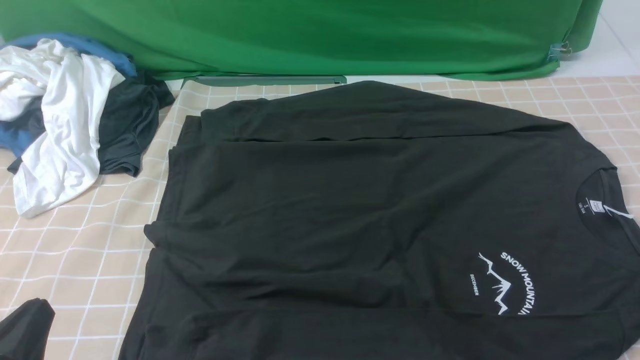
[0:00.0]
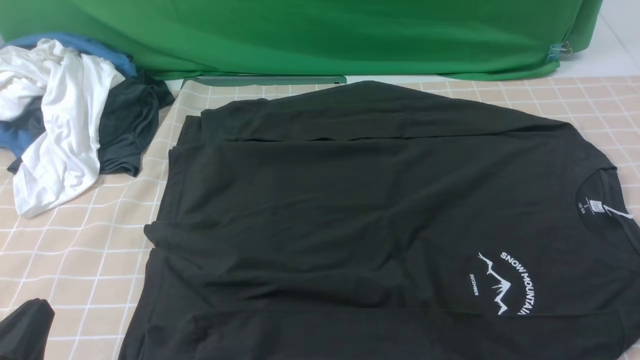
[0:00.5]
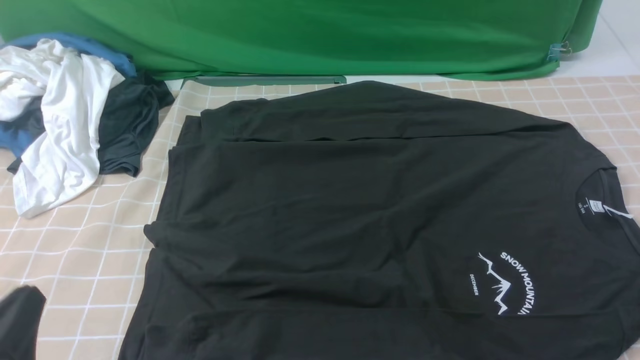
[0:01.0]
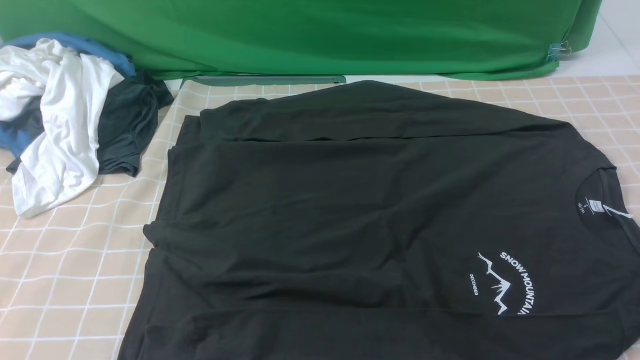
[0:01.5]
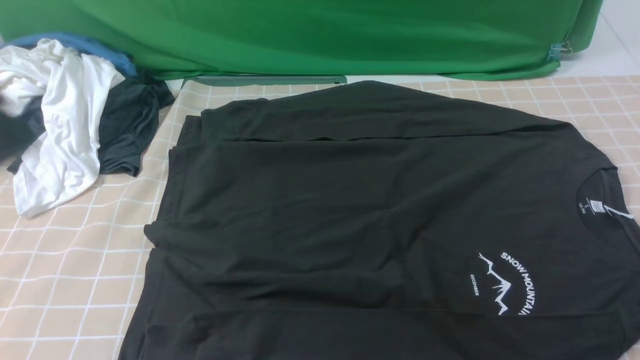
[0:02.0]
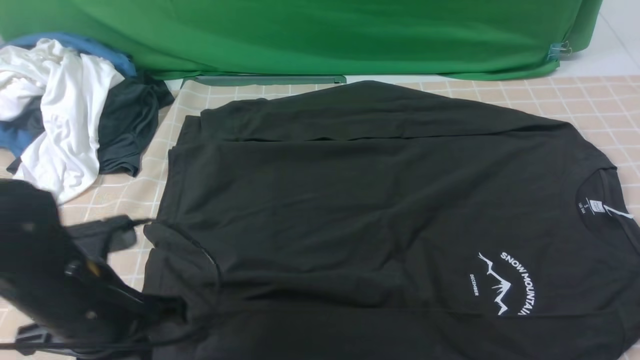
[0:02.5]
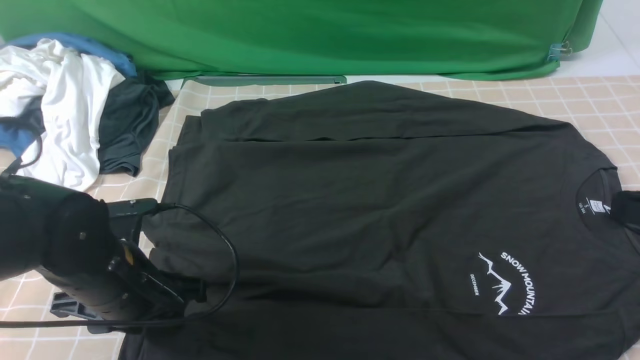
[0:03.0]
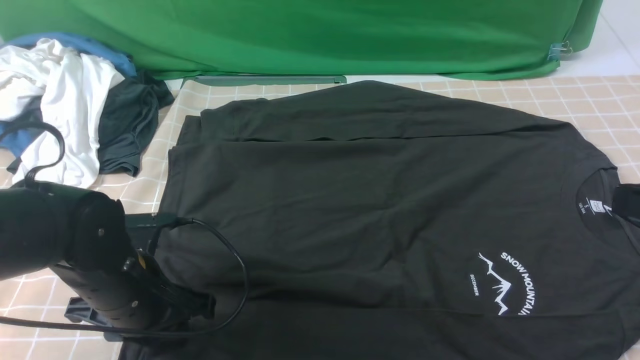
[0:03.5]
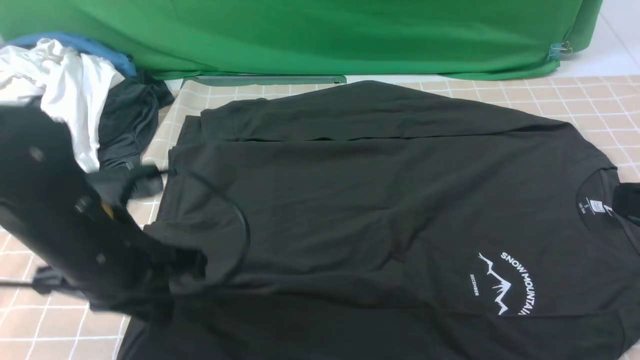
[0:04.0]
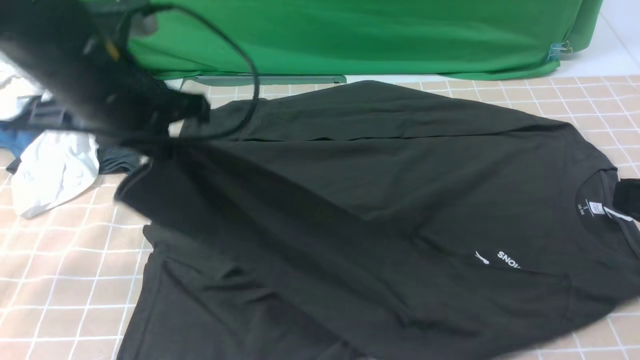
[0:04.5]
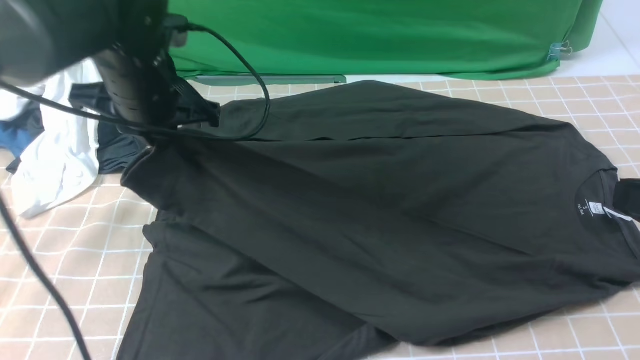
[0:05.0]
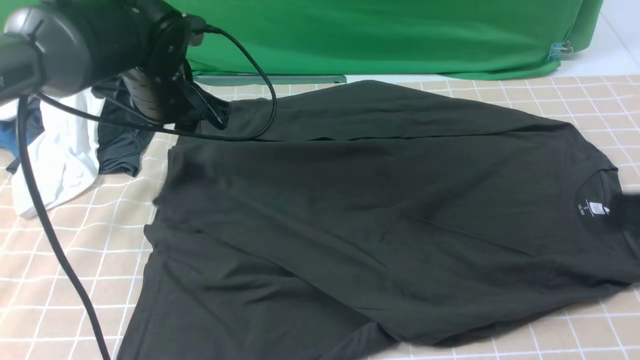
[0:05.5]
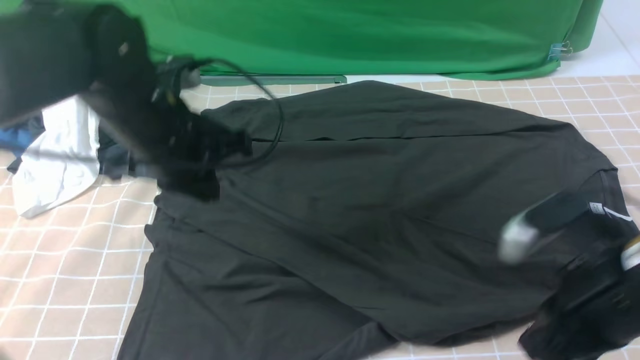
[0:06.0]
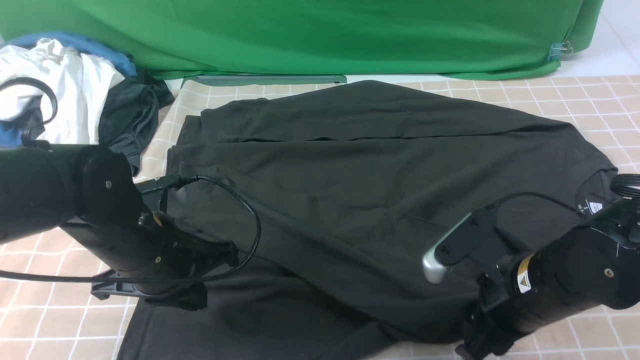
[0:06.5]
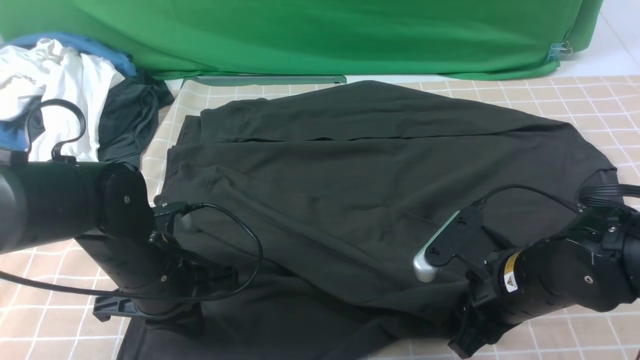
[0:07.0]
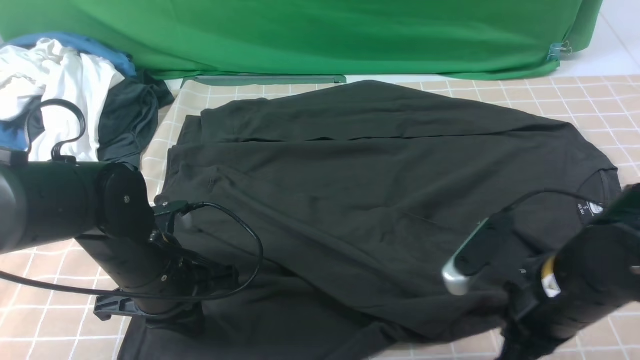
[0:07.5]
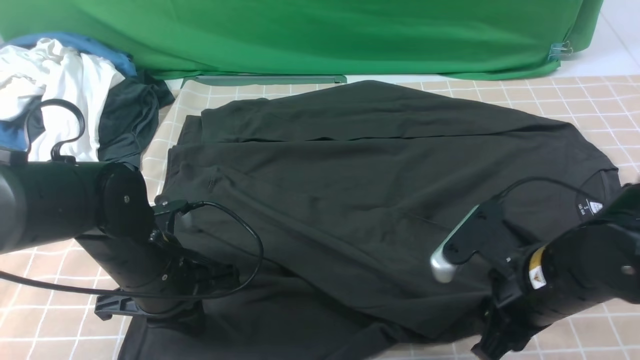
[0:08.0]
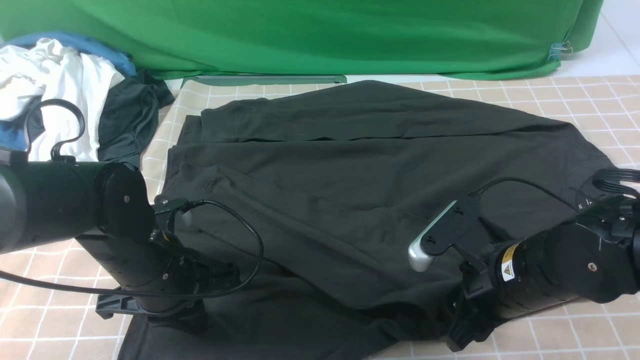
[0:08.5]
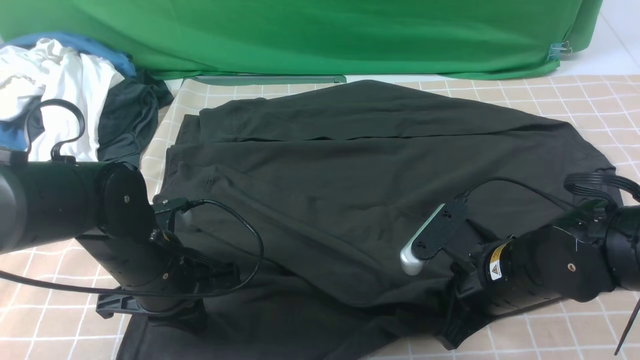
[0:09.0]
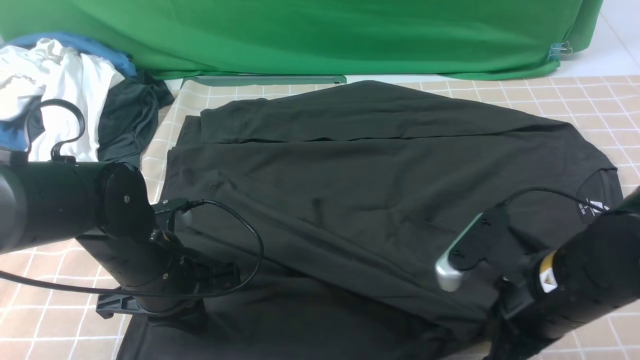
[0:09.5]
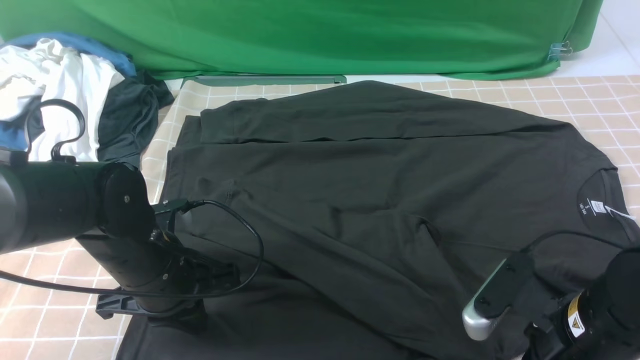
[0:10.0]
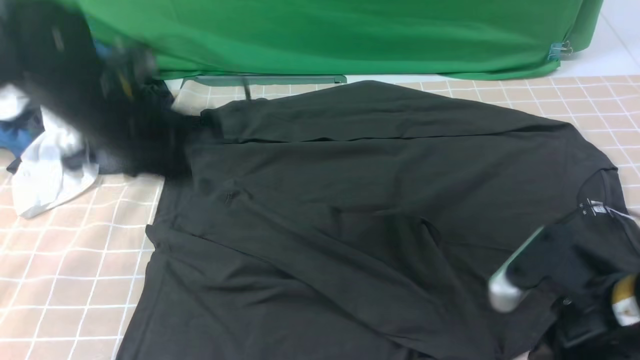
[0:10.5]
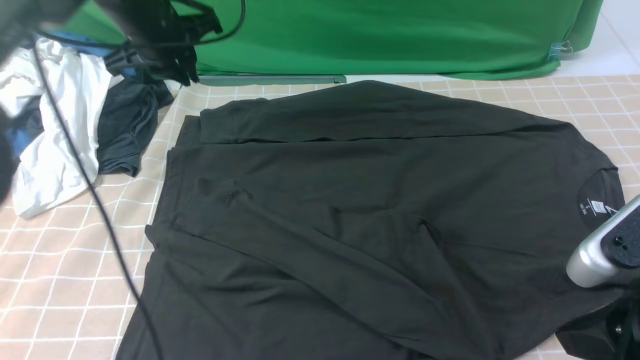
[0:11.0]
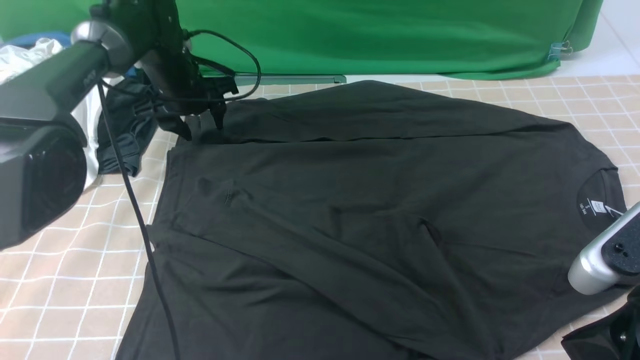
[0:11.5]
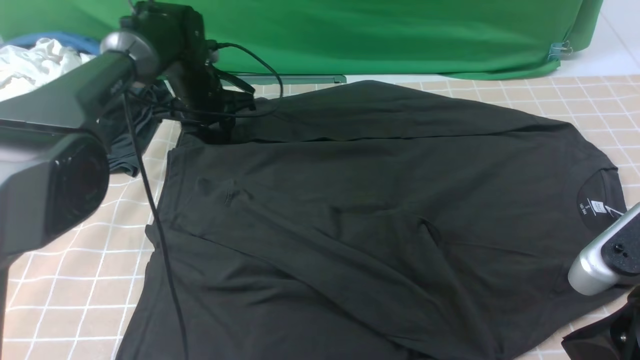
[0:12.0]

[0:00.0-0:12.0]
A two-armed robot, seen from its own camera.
Step, 0:00.0 to 0:03.5: use the left arm to clamp the cuff closest to it.
Step, 0:04.0 to 0:05.5: use the left arm to drag and place the cuff at the centered position on the left edge of the fabric.
0:00.0 to 0:02.0: The left gripper travels upward and forward by approximately 20 cm.
0:02.0 to 0:04.0: The left gripper moves downward, forward and to the right, approximately 15 cm, and opens, then closes once more, while the right gripper goes about 10 cm upward and forward, and closes.
0:04.0 to 0:06.0: The left gripper travels forward by some 10 cm, and opens, then closes once more, while the right gripper goes roughly 10 cm downward, to the left and forward.
0:06.0 to 0:08.0: The right gripper heads downward, covering some 5 cm, and opens up, while the left gripper heads downward and backward, covering about 10 cm.
0:08.0 to 0:10.0: The grippers move only a little.
0:10.0 to 0:12.0: The right gripper travels upward and backward by about 10 cm. Meanwhile the left gripper moves forward, approximately 25 cm, and opens its fingers.

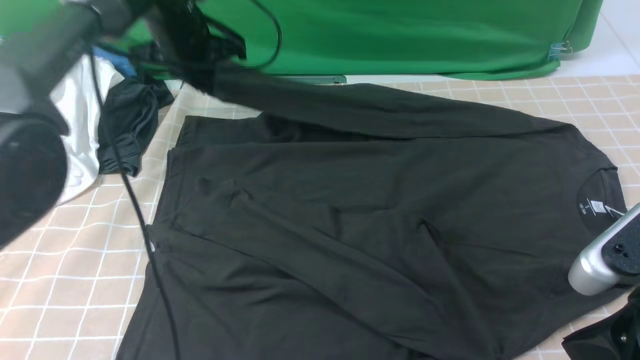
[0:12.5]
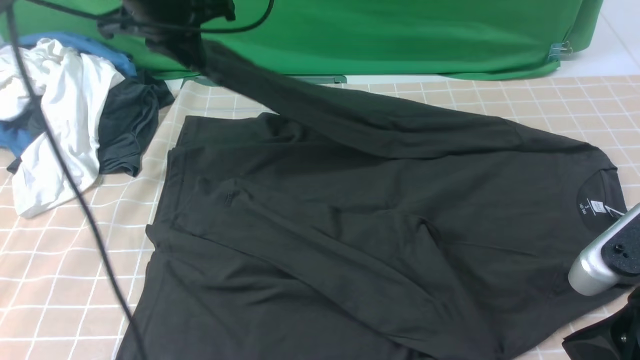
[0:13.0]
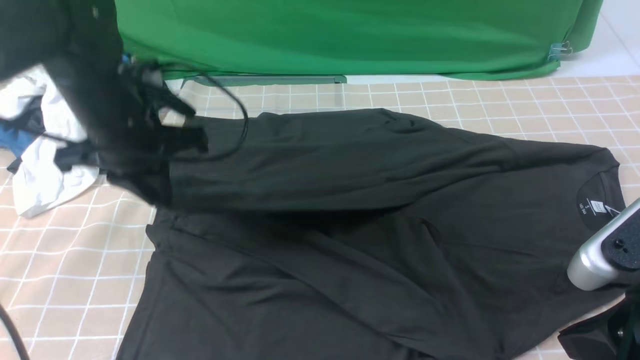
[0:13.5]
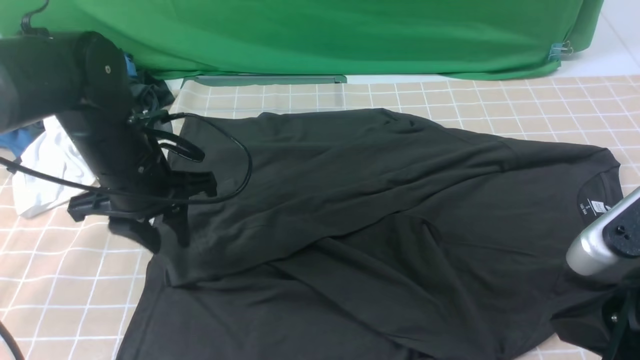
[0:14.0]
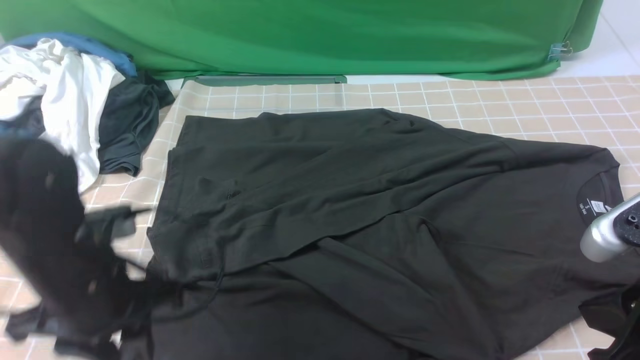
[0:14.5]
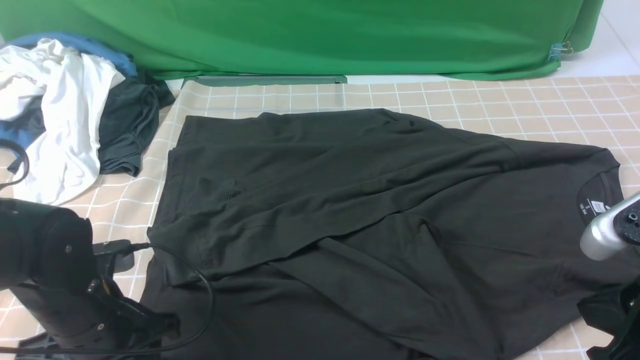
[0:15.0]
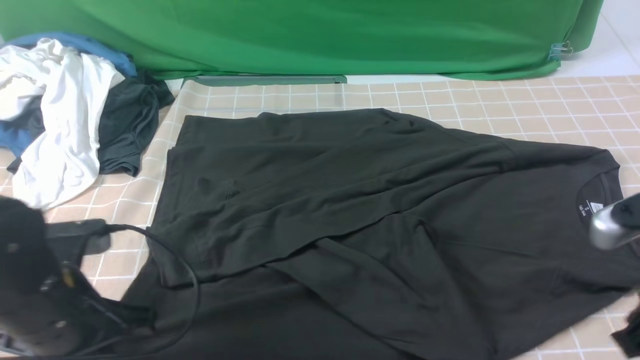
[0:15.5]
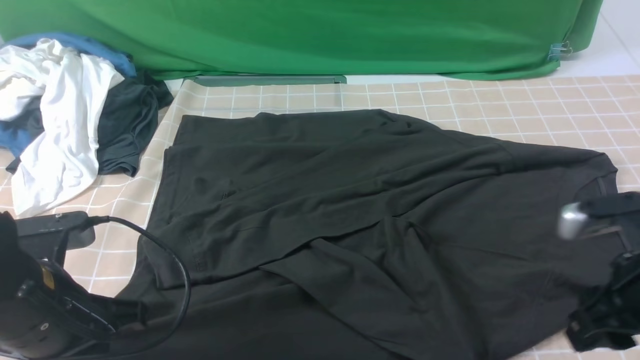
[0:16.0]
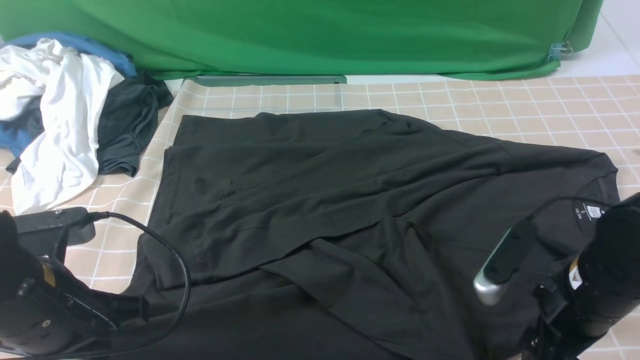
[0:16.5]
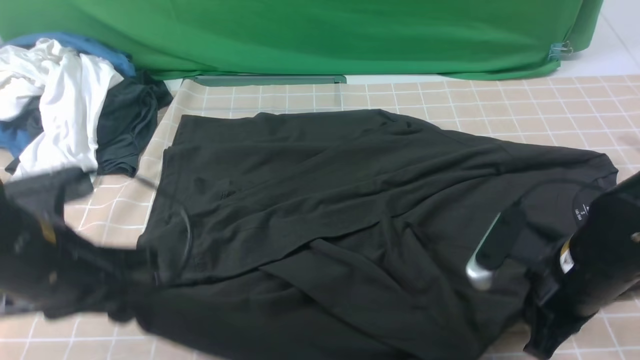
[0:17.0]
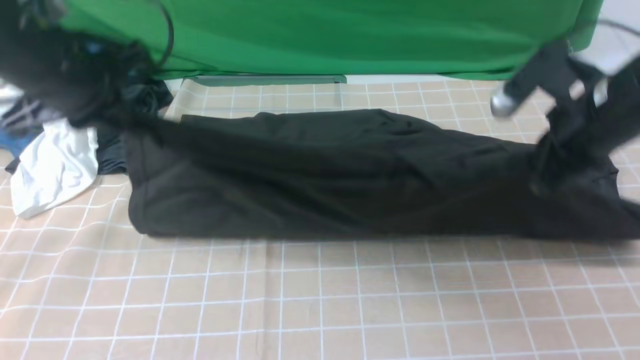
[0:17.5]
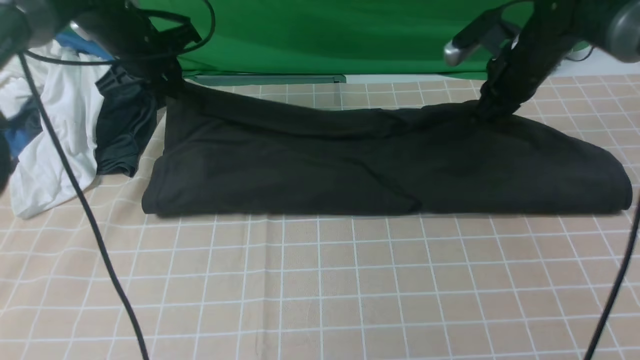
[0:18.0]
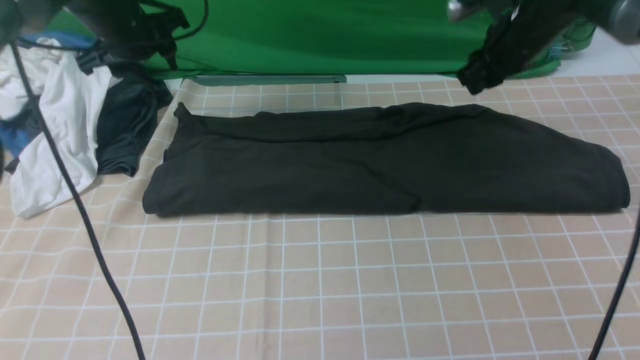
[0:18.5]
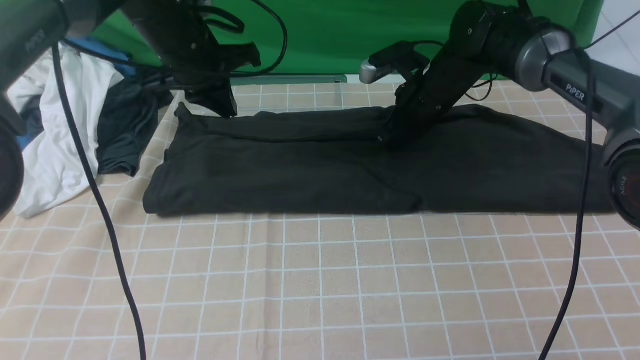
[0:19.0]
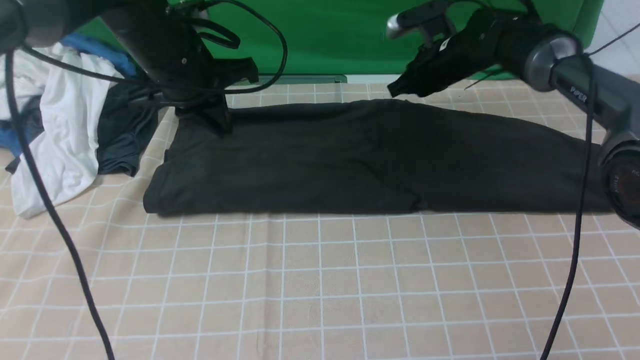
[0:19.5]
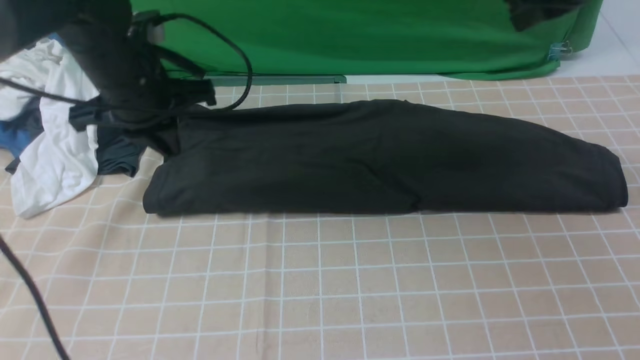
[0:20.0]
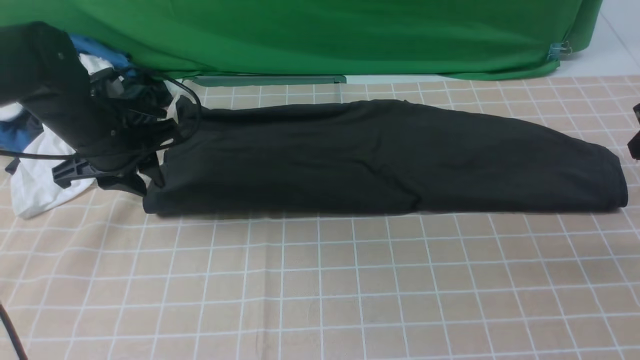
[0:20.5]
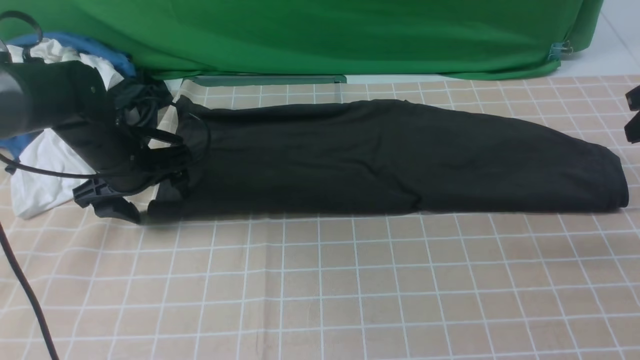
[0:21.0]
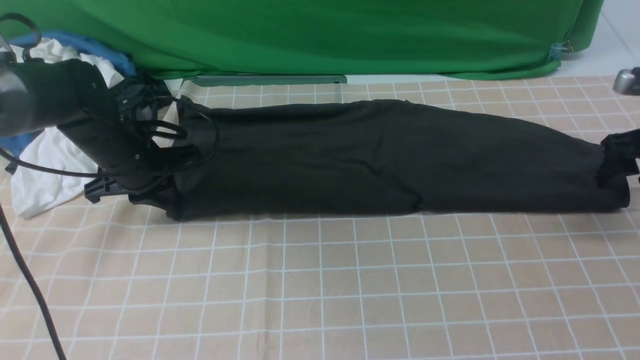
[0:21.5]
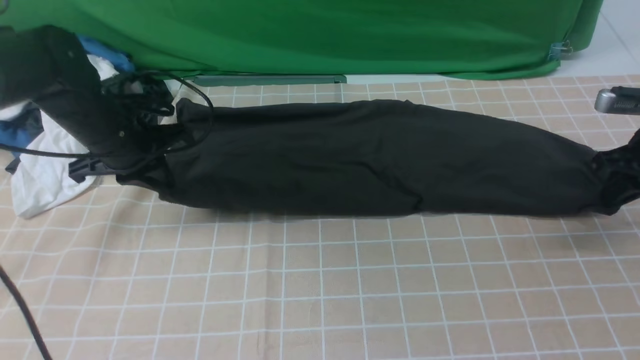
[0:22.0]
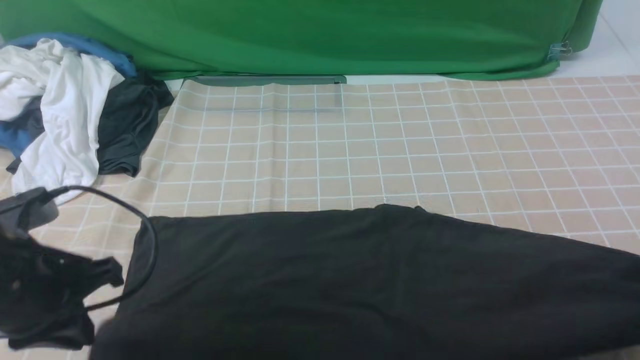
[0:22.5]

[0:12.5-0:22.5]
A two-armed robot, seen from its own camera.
Step, 0:12.5 to 0:14.0: use the left arm to drag and drop the cuff onto the cuff closest to the left arm.
Step, 0:14.5 to 0:16.5: use both arms simultaneously to clamp the lower edge of the clothing fabric.
Step, 0:17.0 to 0:18.0: use both arms to drag the lower edge of the fabric forward and fold it over the upper edge.
0:12.5 to 0:14.5: The left gripper shifts approximately 30 cm backward, and opens its fingers.
0:14.5 to 0:16.5: The right gripper shifts about 15 cm downward and forward, and opens; the left gripper closes its fingers.
0:16.5 to 0:18.5: Both grippers move forward, roughly 30 cm. The right gripper closes up; the left gripper opens up.
0:18.5 to 0:20.5: The right gripper goes some 20 cm to the right and backward; the left gripper heads backward and downward, covering approximately 15 cm, and closes, then reopens.
0:20.5 to 0:22.5: The right gripper heads backward and downward, covering some 15 cm, and opens, then closes again; the left gripper is displaced backward by some 15 cm, and closes up.
